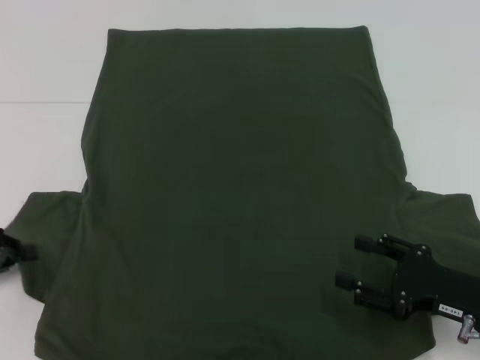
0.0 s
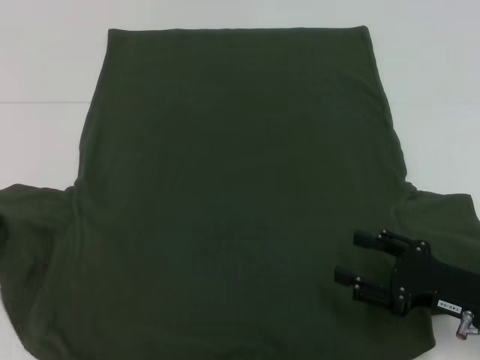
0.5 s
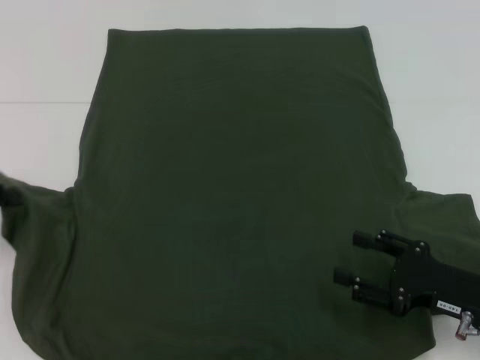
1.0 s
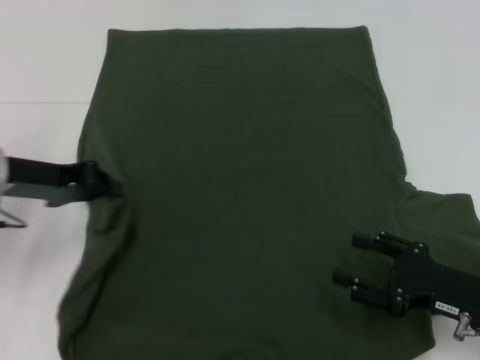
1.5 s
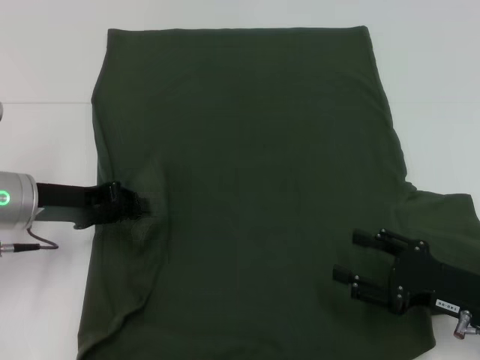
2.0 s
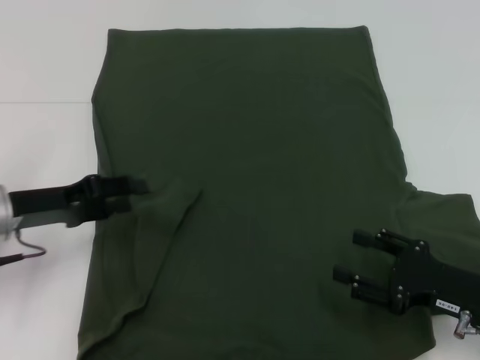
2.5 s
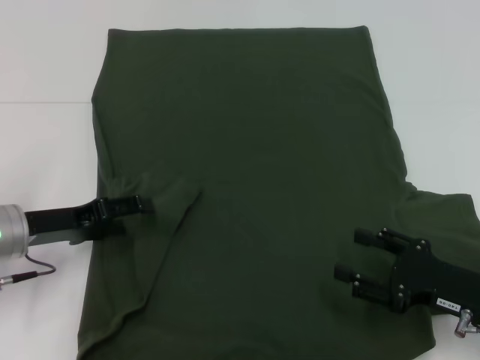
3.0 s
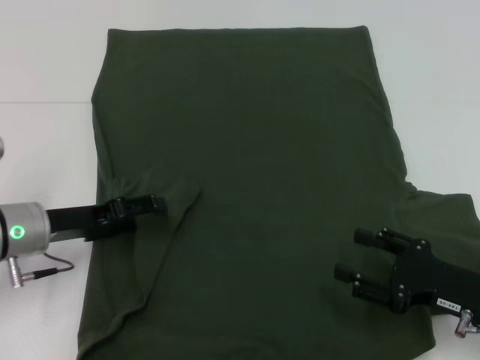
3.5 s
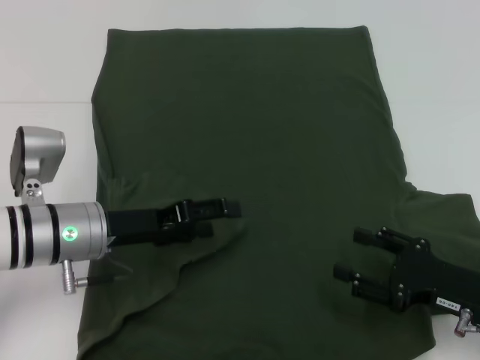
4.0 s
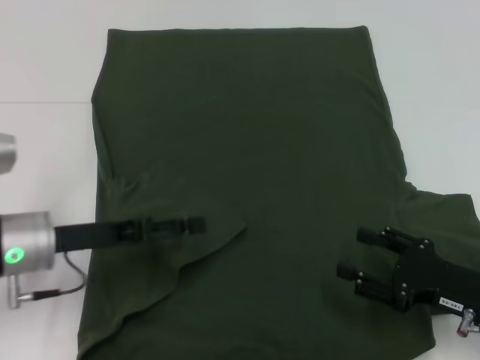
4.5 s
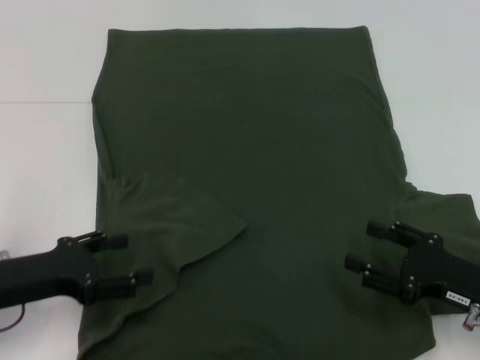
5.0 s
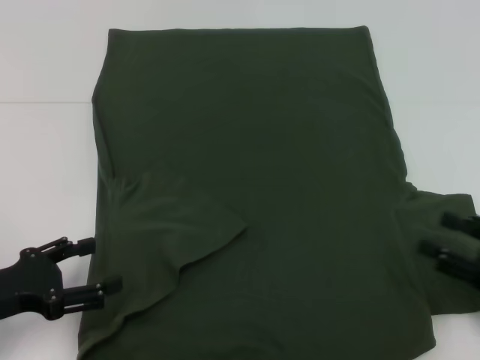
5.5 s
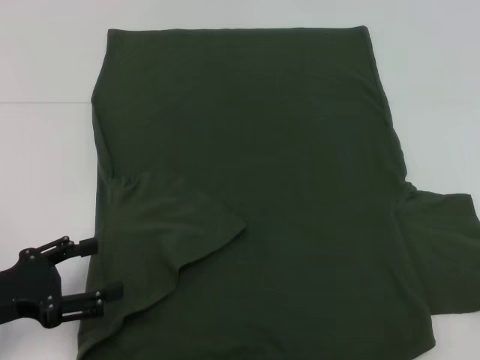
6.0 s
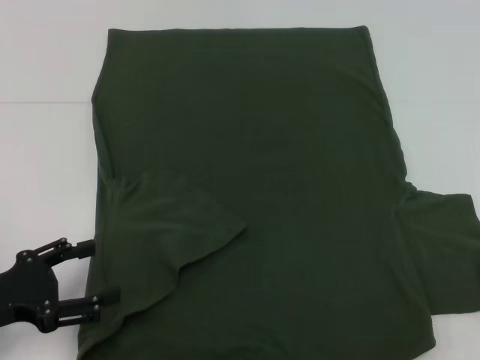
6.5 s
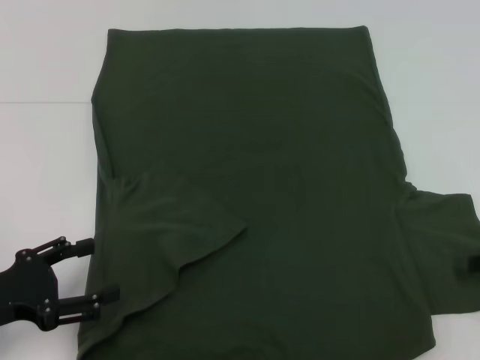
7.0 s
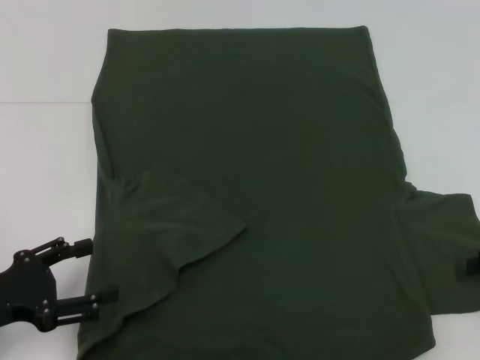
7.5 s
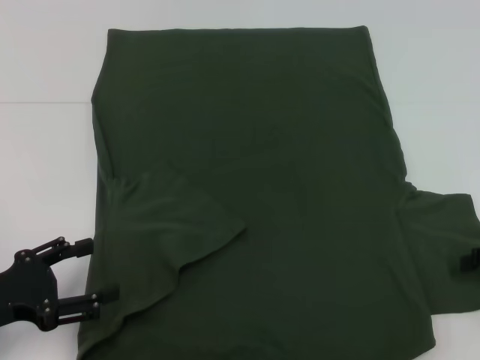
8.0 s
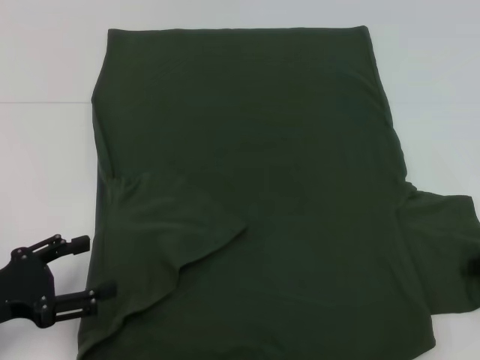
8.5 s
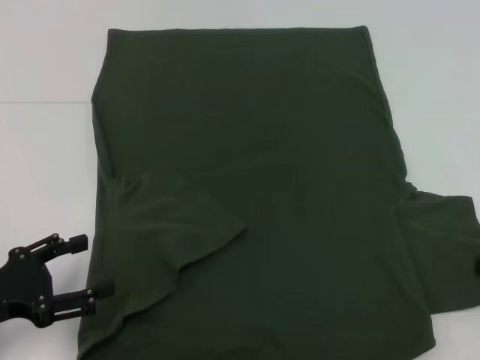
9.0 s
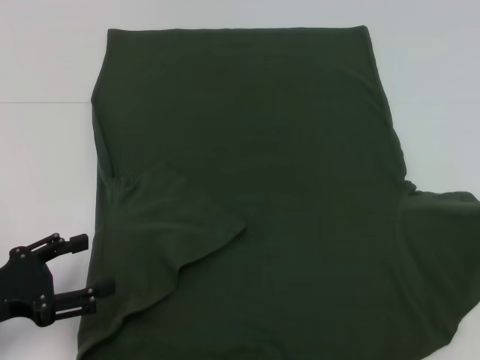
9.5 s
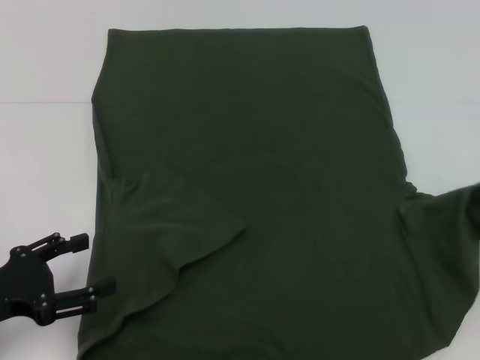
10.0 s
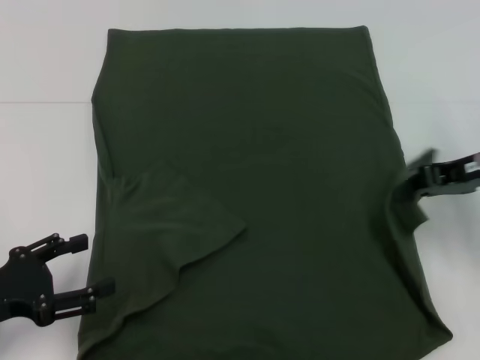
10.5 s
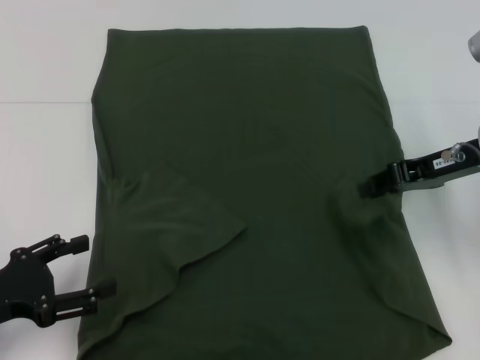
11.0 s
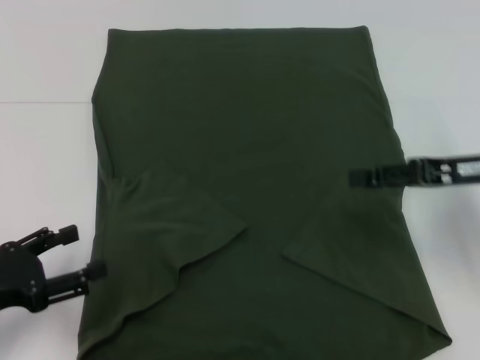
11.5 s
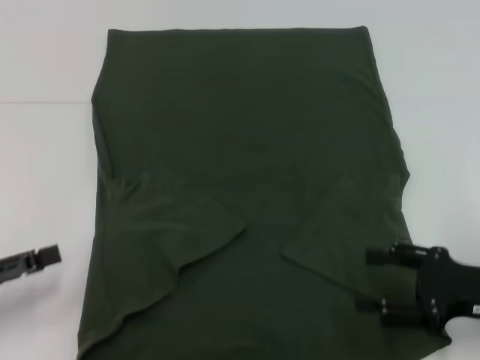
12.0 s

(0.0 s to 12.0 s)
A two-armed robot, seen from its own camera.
Step, 0.0 s - 4.5 s: Fold the bottom left sleeve with your left hand.
Step, 5.0 s - 11.0 s: Fold the bottom right sleeve with your right hand.
0.0 s - 2.0 s: The left gripper shifts about 15 cm to the right and forward.
2.0 s - 4.0 s: The left gripper shifts some 5 cm to the right, and opens up.
4.0 s - 6.0 s: The left gripper heads to the left and backward, covering roughly 15 cm. The right gripper travels to the right and upward by some 20 cm.
8.0 s - 10.0 s: The right gripper goes about 5 cm upward, and closes its fingers.
10.0 s - 12.0 s: The right gripper goes roughly 15 cm backward, downward and to the left, and opens its fingers.

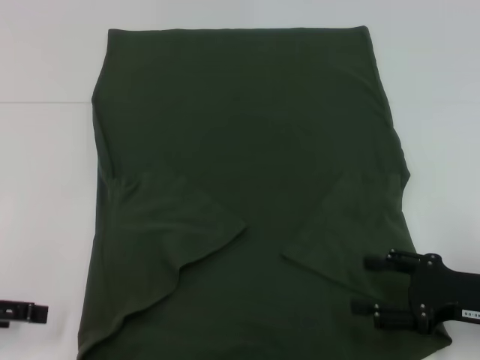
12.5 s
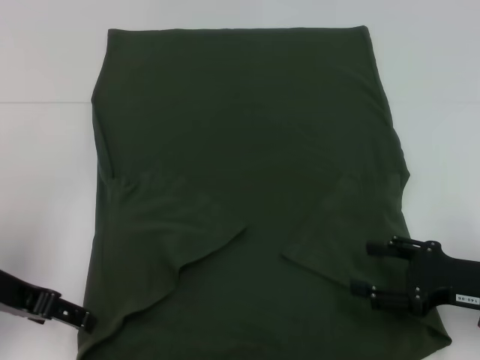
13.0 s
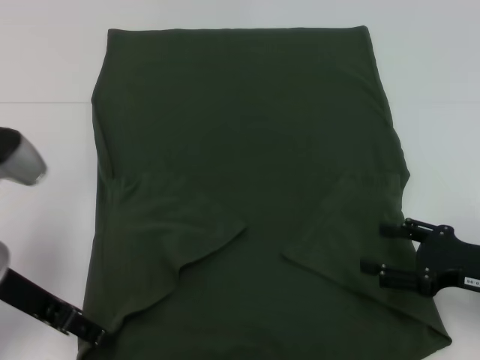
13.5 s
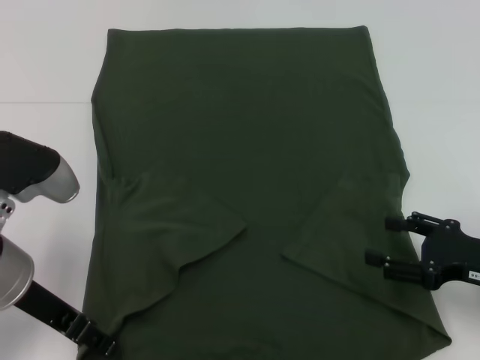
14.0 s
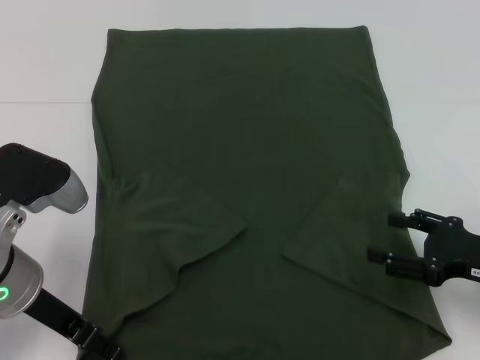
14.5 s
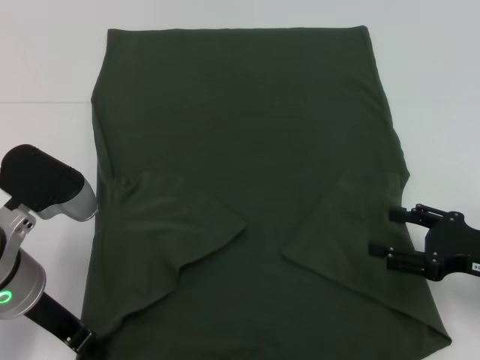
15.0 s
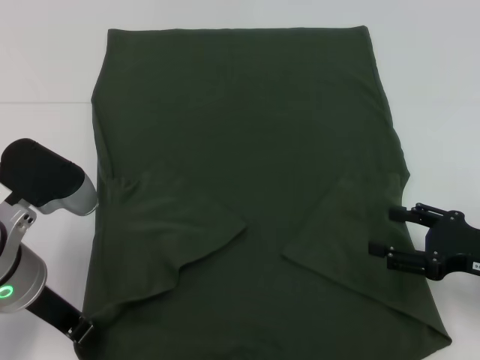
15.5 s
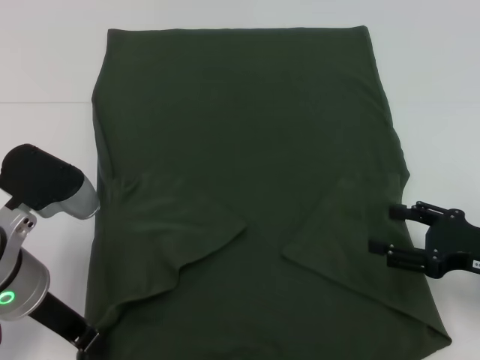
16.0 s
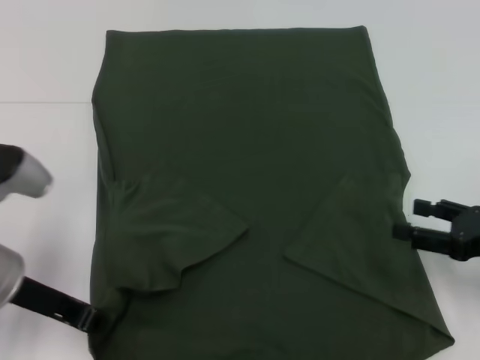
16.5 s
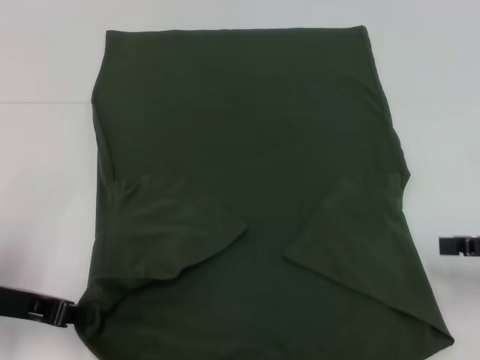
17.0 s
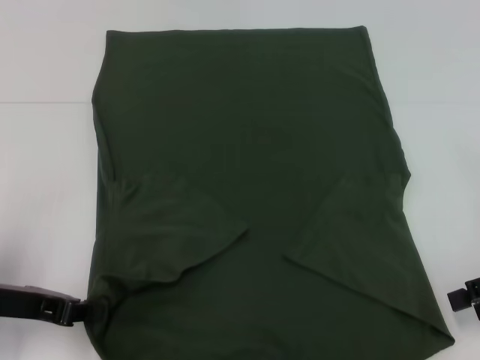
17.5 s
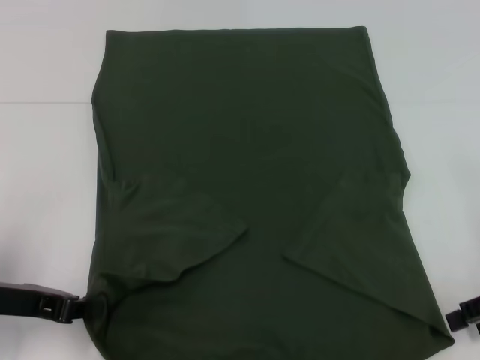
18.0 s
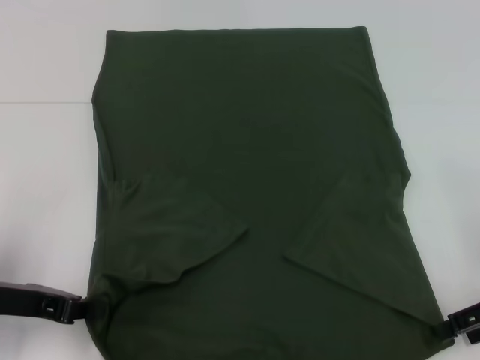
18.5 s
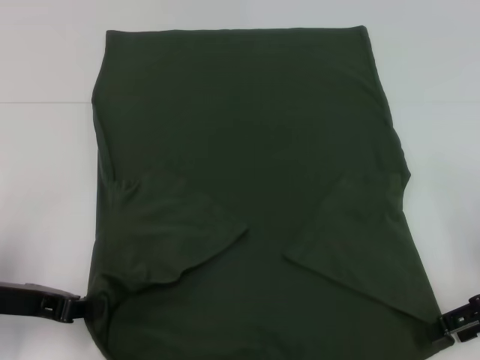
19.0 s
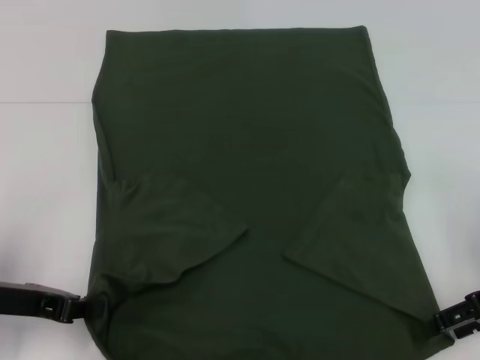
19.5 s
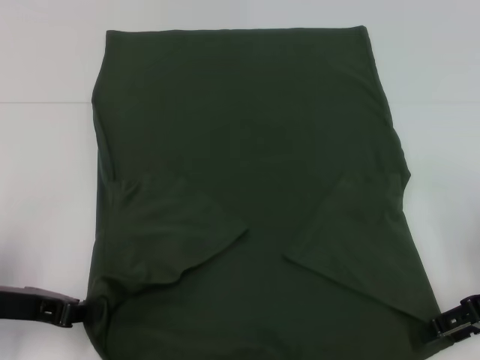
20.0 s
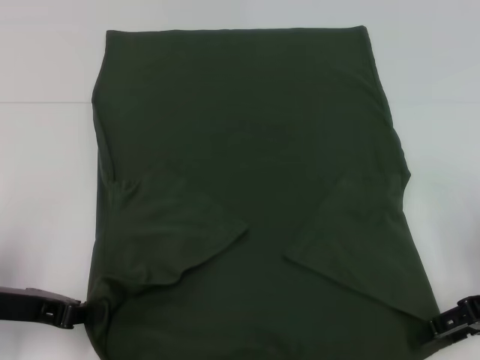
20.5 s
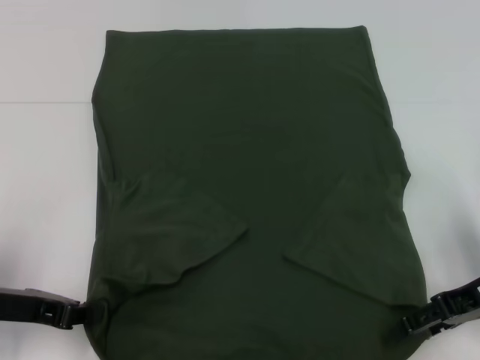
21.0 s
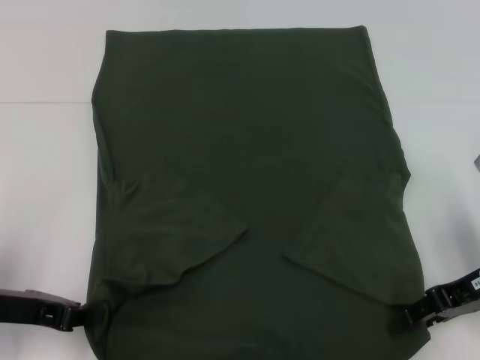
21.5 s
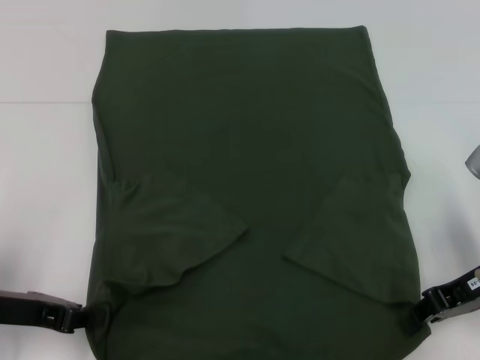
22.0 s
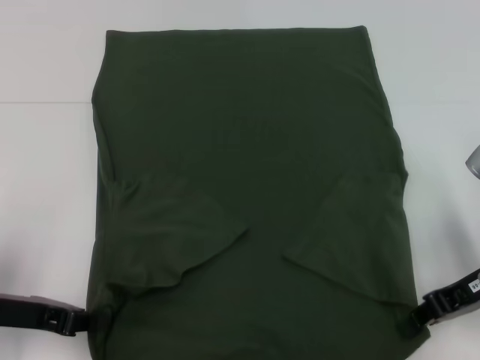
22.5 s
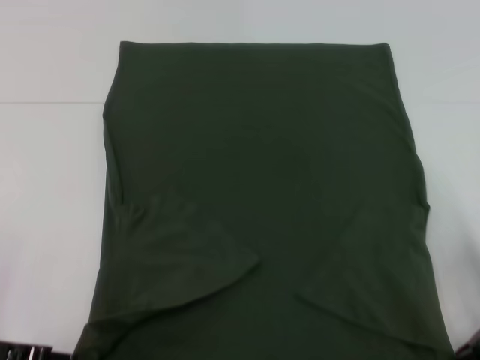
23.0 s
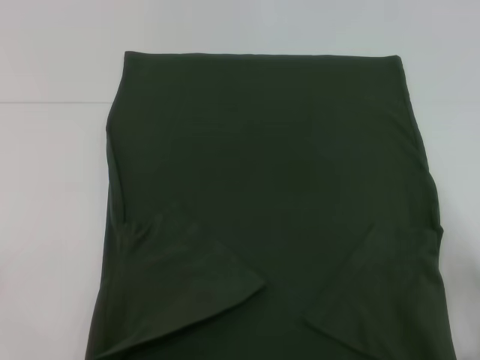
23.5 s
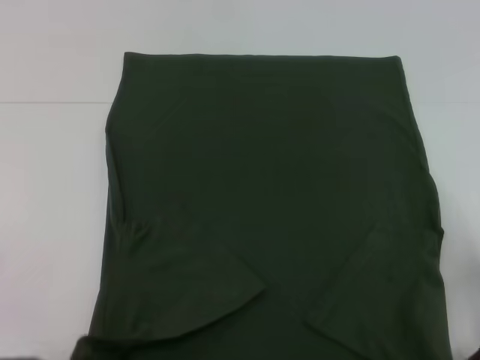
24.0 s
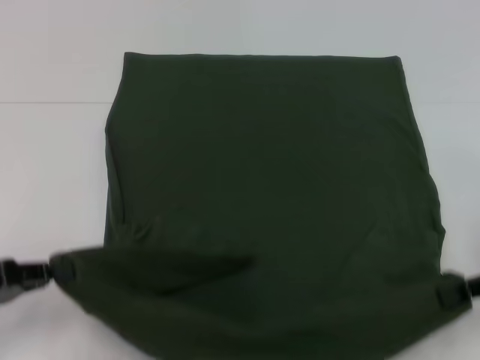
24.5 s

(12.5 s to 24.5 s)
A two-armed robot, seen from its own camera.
Step, 12.5 s - 16.0 s: Grab the bottom left corner with your left hand.
Step, 16.5 s - 21.5 s: Grab the bottom right corner with your right hand.
12.5 s - 14.5 s: The left gripper is displaced to the right by some 15 cm.
14.5 s - 16.5 s: The left gripper closes its fingers.
16.5 s - 18.5 s: The left gripper moves some 5 cm.
18.5 s - 20.5 s: The grippers move only a little.
20.5 s - 22.5 s: The right gripper closes up.
22.5 s - 24.5 s: The left gripper is displaced to the left by some 5 cm, while the right gripper travels to the right by roughly 5 cm.

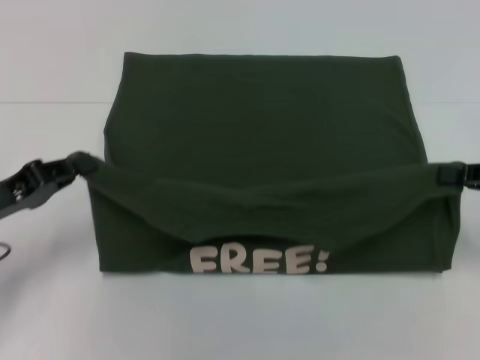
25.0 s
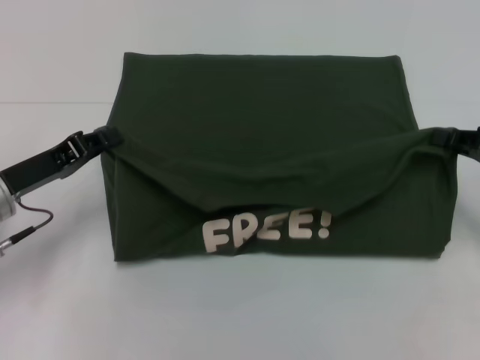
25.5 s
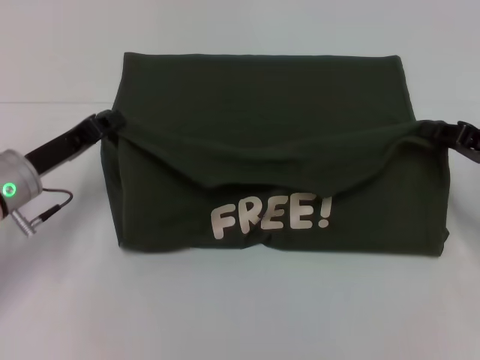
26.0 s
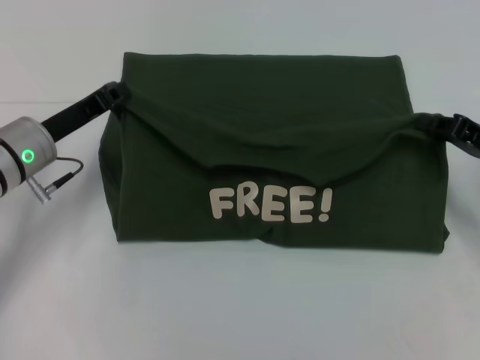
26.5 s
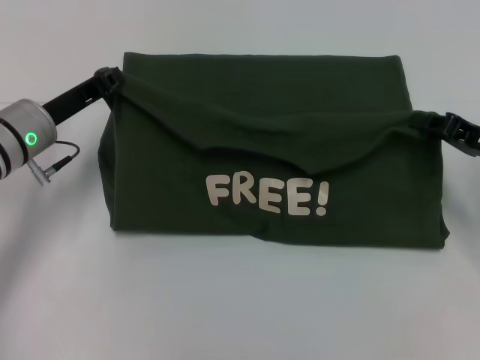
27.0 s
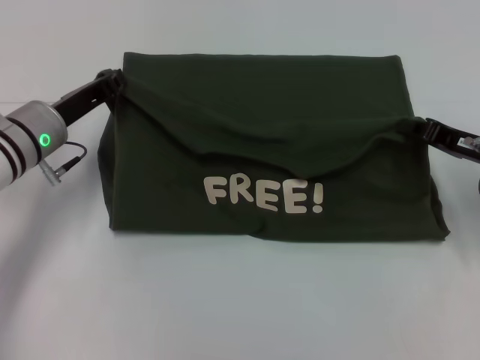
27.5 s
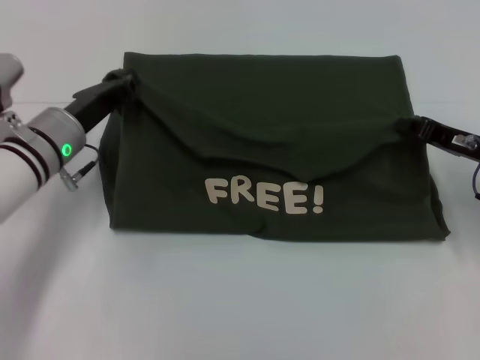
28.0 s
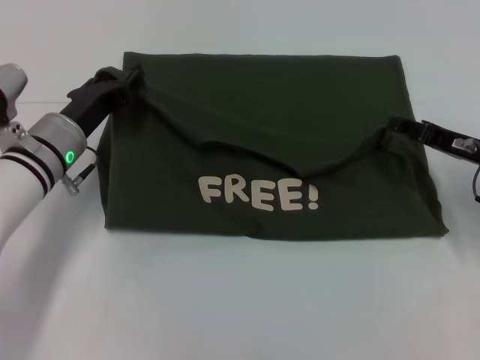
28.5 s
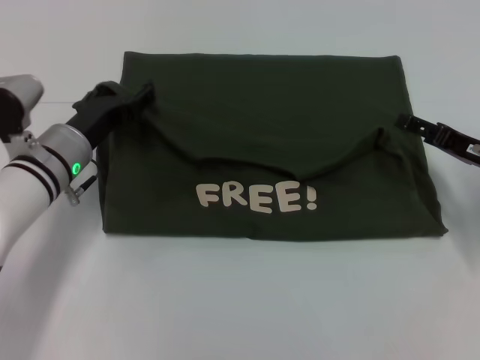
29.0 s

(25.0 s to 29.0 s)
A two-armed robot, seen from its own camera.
25.0 s - 27.0 s: The right gripper moves some 10 cm. The left gripper moves forward and to the right, about 15 cm.
27.0 s - 29.0 s: The right gripper opens. The left gripper shifts by some 5 cm, and opens its fingers.
